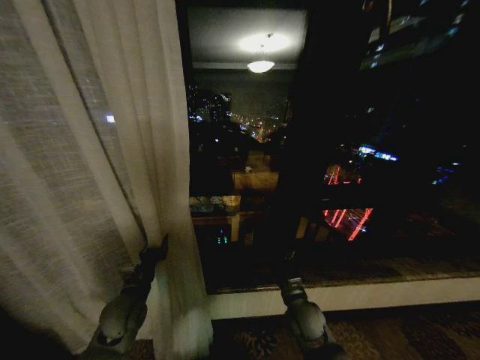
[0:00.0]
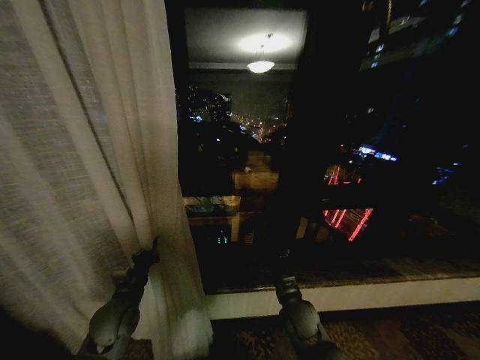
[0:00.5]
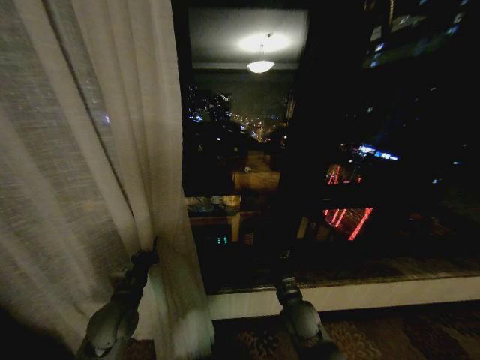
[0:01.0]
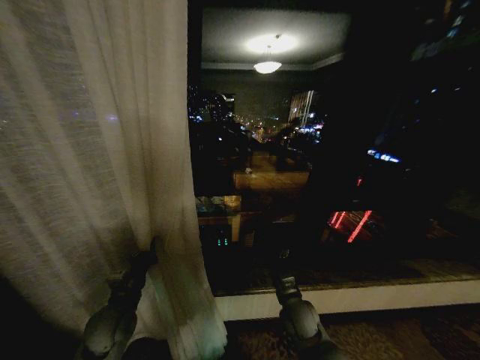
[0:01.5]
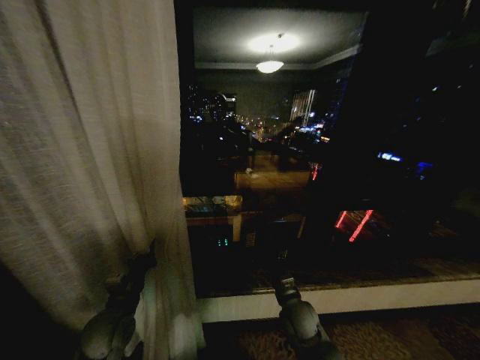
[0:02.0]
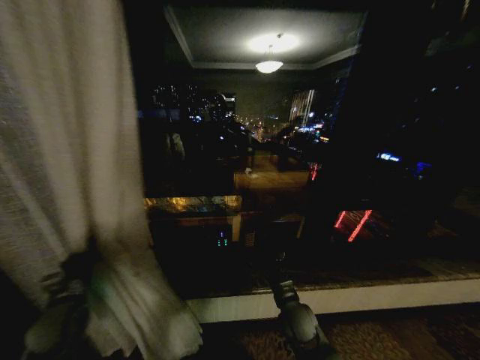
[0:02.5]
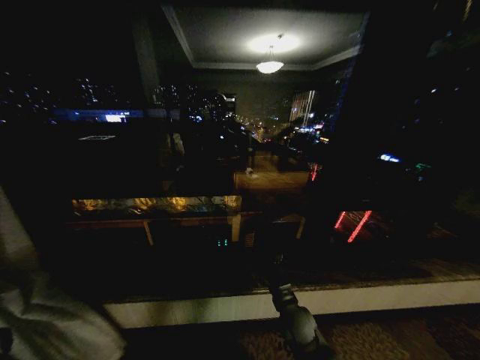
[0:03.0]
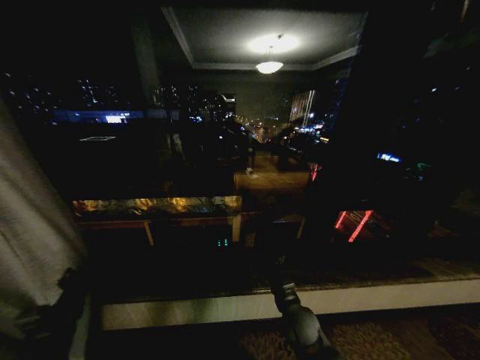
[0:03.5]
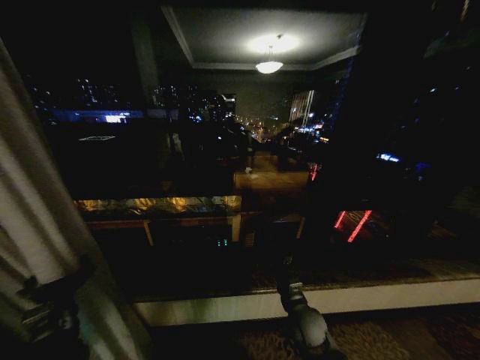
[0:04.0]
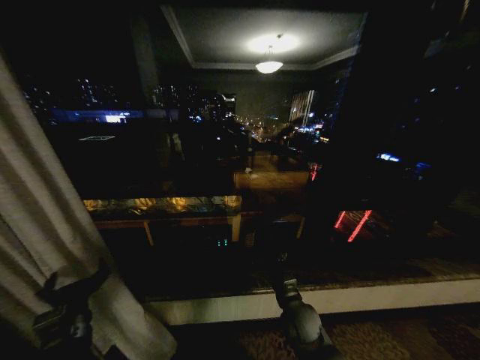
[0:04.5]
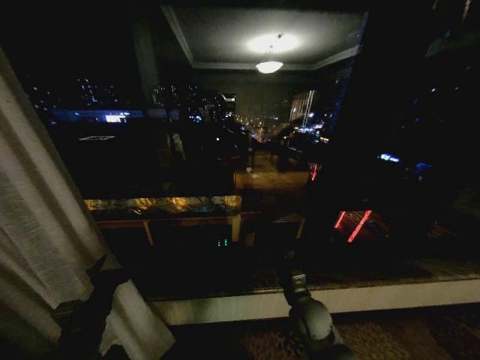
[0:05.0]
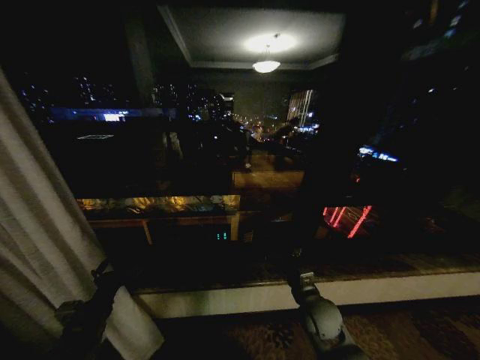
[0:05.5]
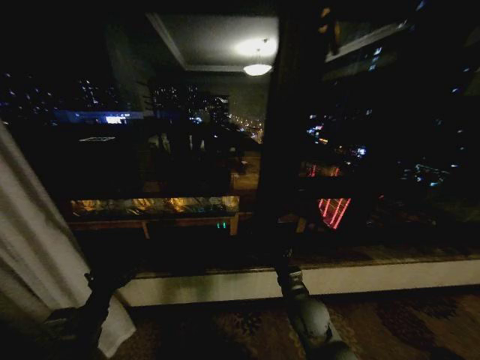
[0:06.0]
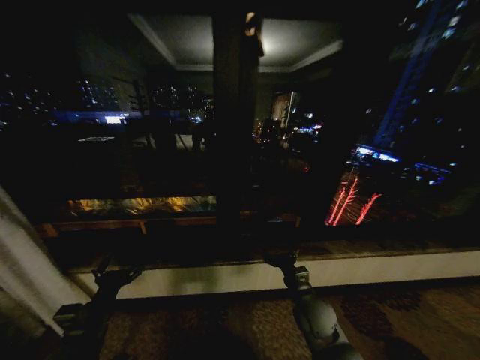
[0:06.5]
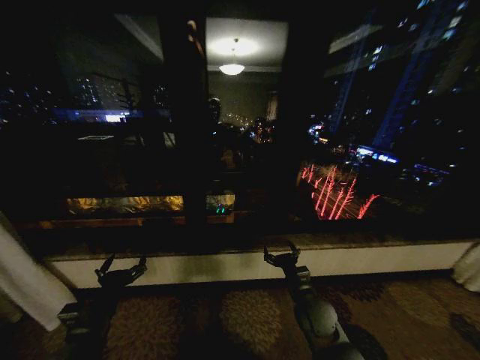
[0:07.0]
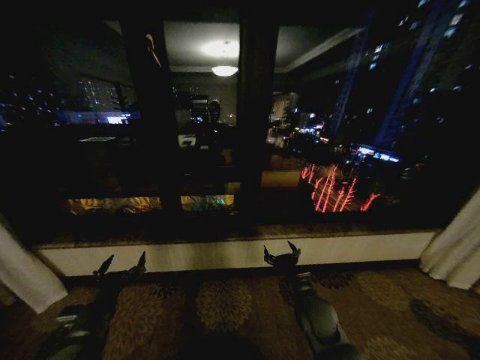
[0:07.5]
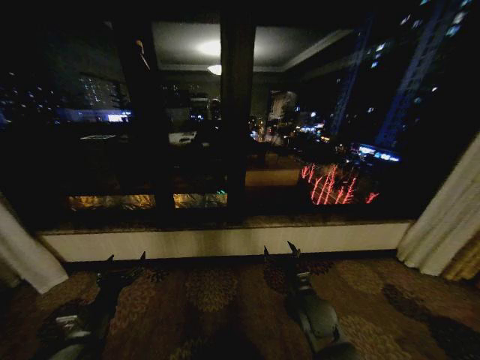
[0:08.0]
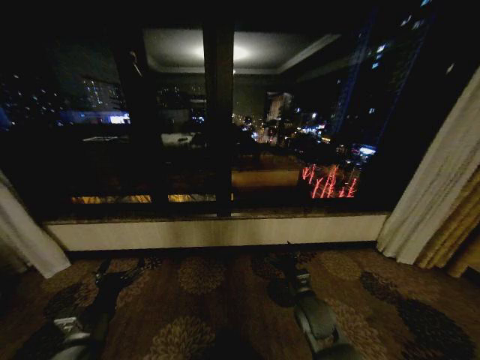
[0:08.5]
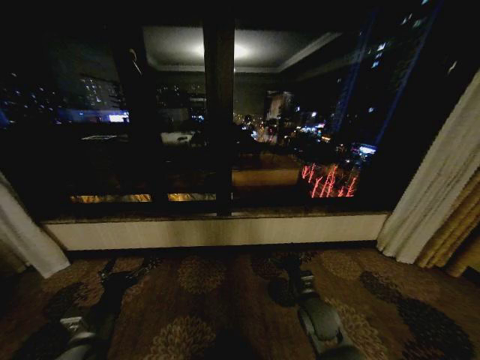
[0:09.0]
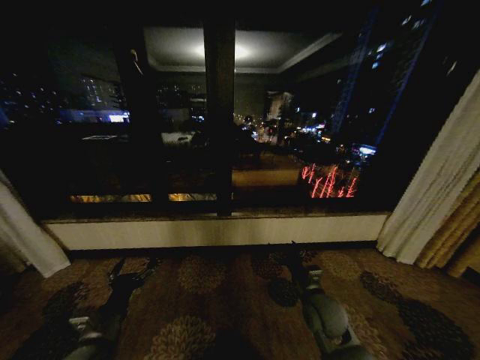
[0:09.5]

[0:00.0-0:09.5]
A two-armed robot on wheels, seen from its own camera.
Task of the whole recording: Open the curtains by pulling them apart, changing their state from closed to fully open.
0:00.0 to 0:02.0: The left gripper closes.
0:02.0 to 0:04.0: The left gripper moves backward, approximately 5 cm, travels to the left and back again, about 25 cm each way, and opens up.

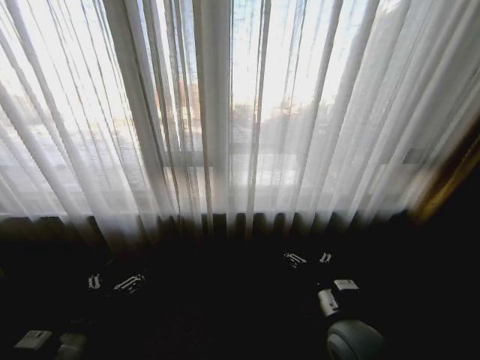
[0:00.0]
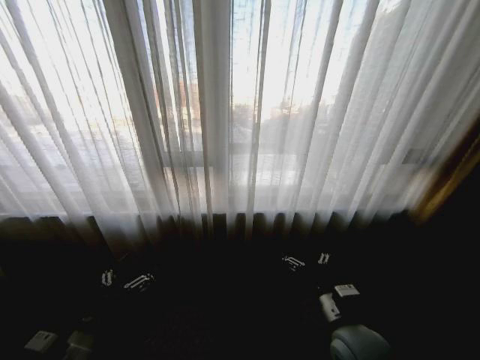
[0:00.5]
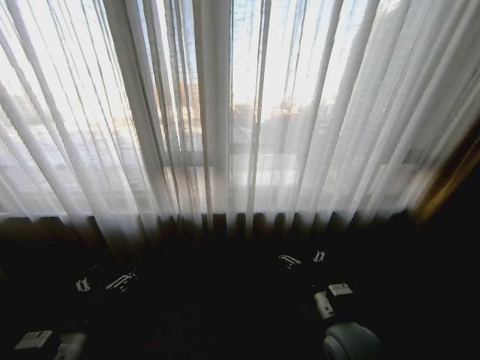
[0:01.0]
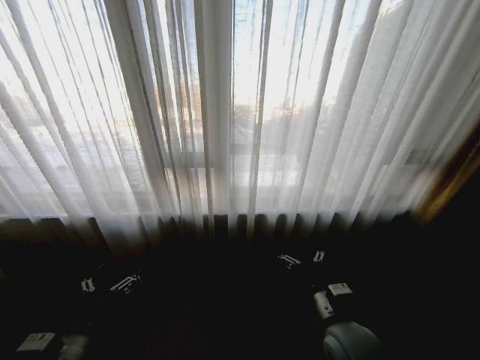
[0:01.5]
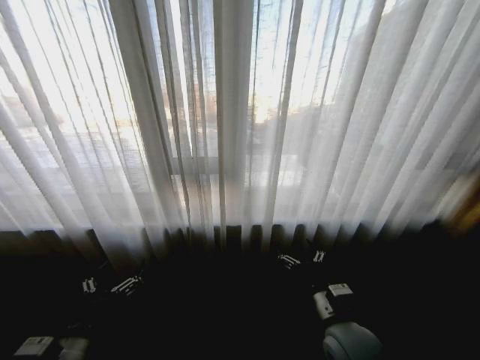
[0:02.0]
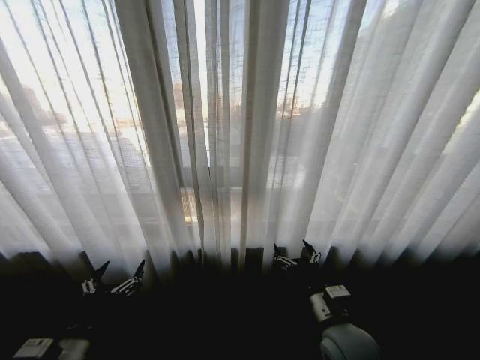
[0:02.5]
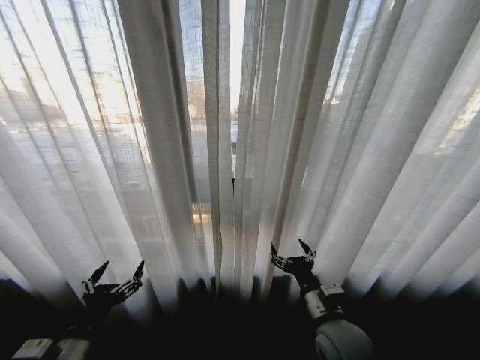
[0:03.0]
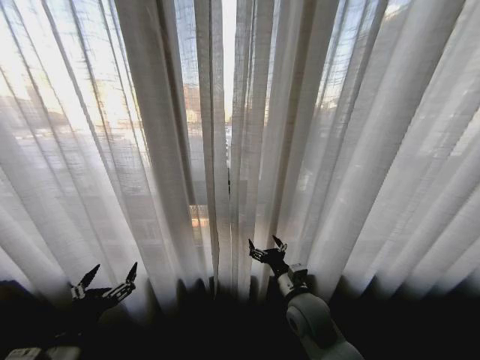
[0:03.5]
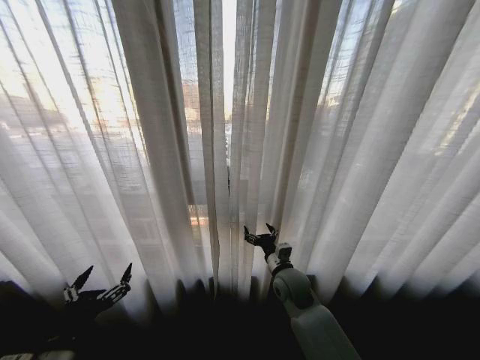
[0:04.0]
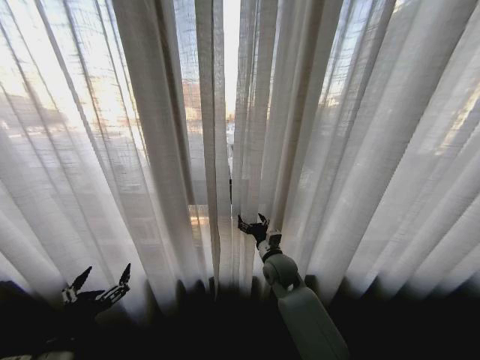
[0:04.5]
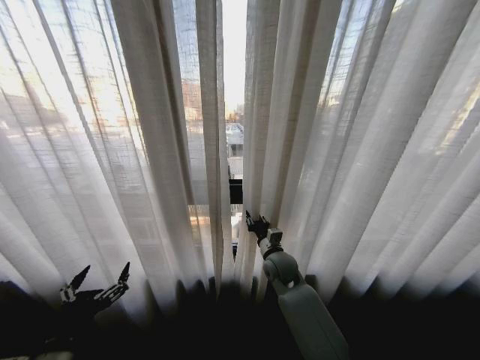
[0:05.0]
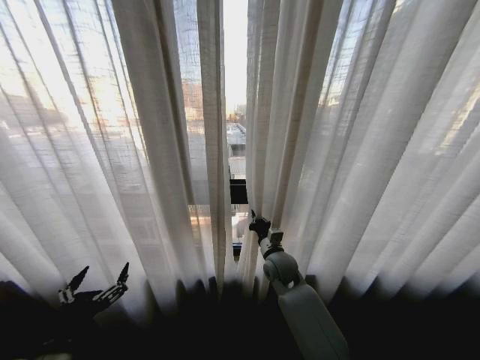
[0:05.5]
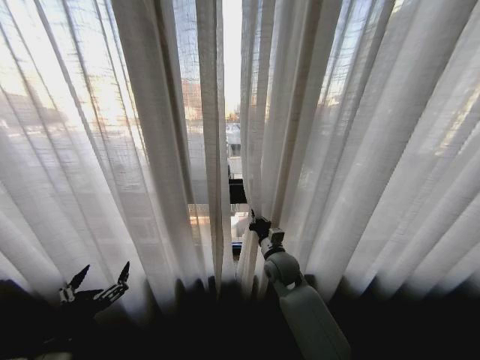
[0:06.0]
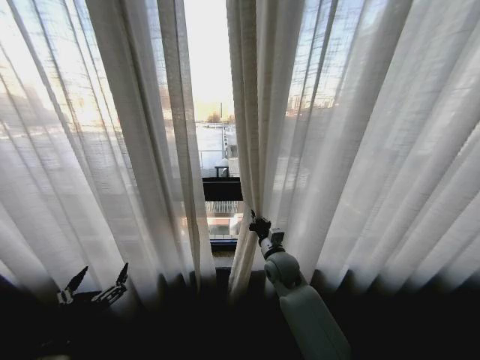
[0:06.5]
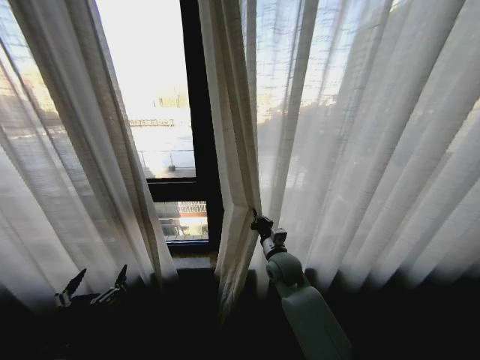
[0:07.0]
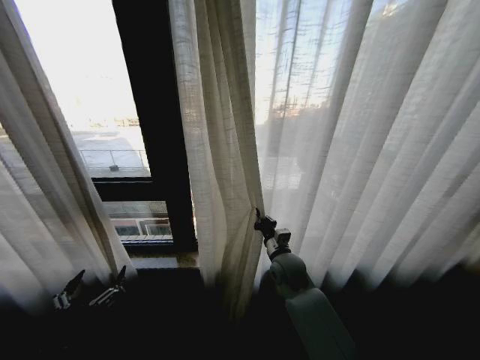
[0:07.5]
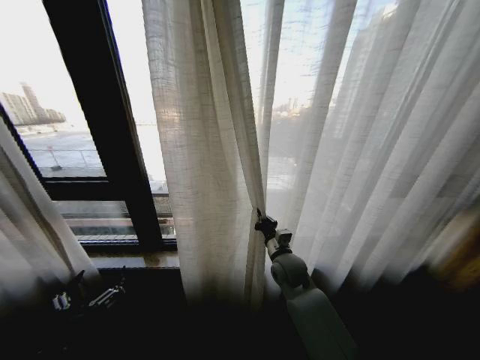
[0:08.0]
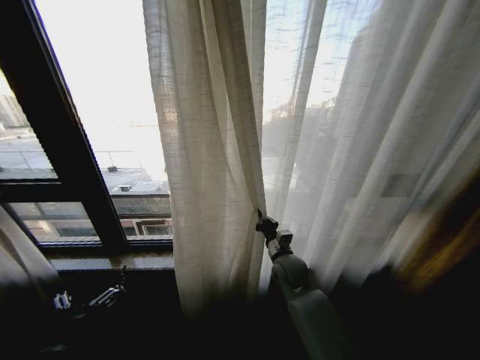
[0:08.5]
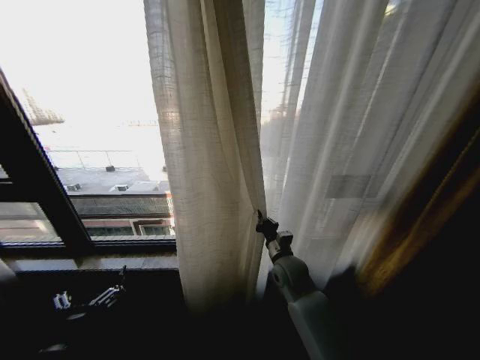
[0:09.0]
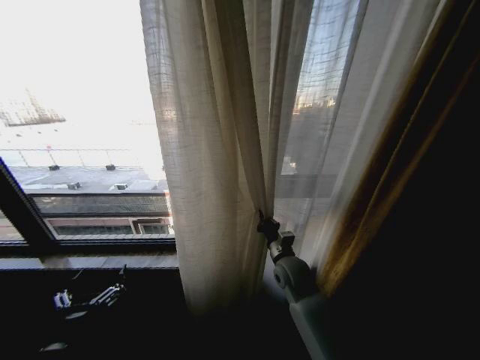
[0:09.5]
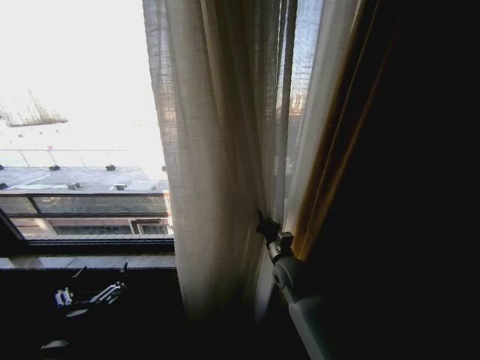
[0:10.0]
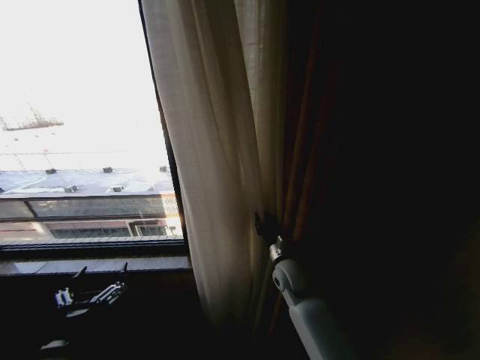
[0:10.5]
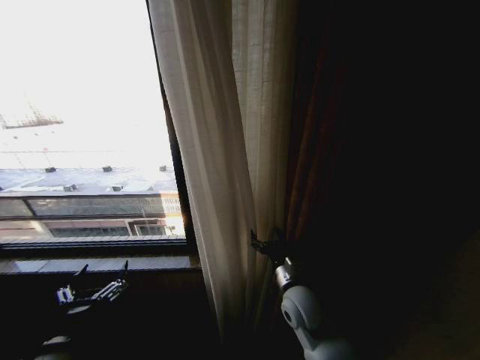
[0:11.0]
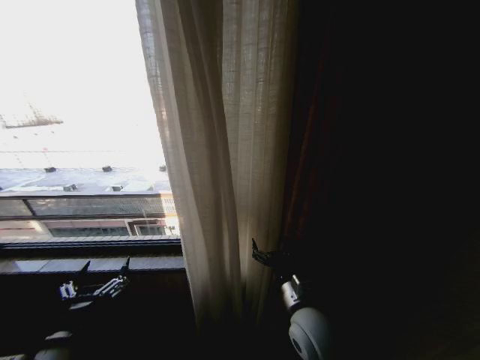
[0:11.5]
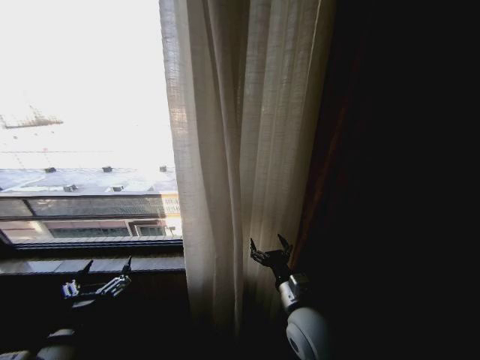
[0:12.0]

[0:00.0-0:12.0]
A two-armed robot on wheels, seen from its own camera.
Task of the whole recording: Open the curtains by pulling them apart, changing their state from closed to fully open.
0:02.0 to 0:04.0: The right gripper shifts about 15 cm forward.
0:04.0 to 0:06.0: The right gripper closes up.
0:10.0 to 0:12.0: The right gripper heads backward, covering approximately 15 cm, and opens up.

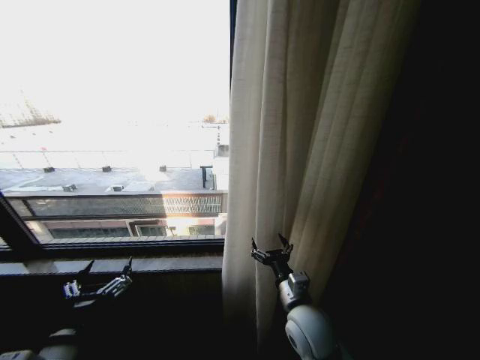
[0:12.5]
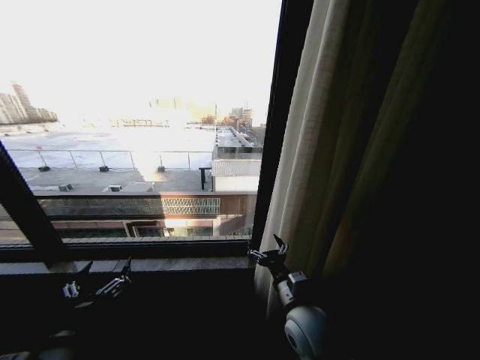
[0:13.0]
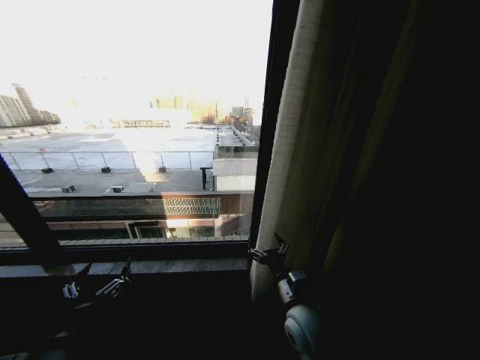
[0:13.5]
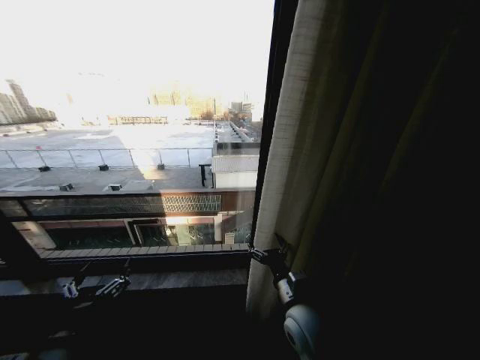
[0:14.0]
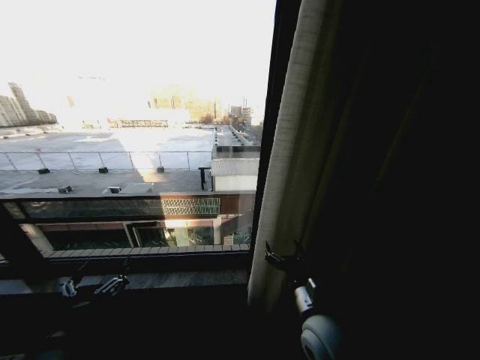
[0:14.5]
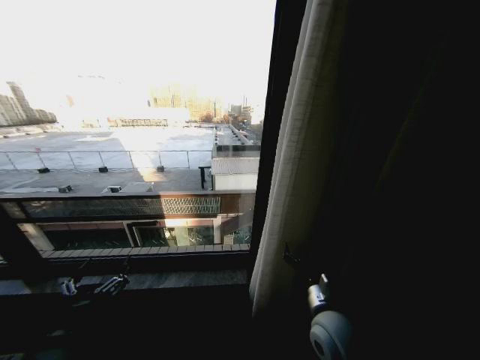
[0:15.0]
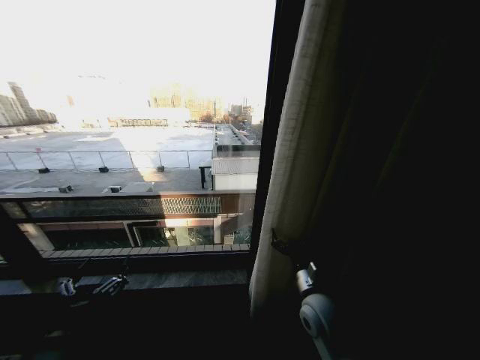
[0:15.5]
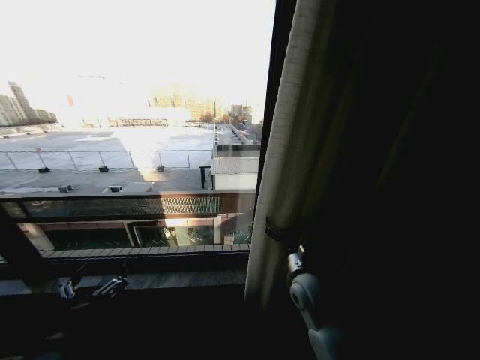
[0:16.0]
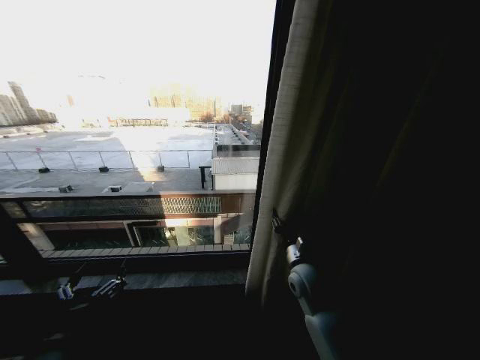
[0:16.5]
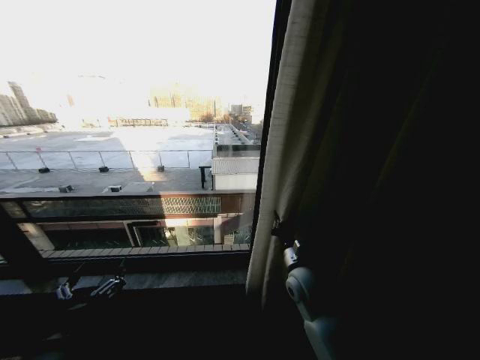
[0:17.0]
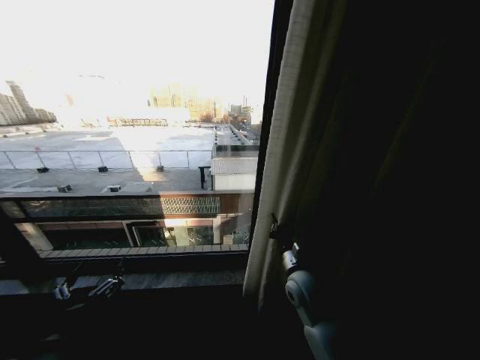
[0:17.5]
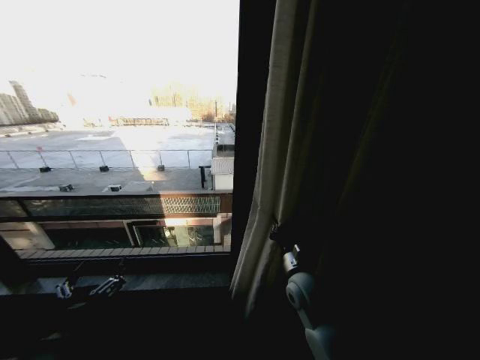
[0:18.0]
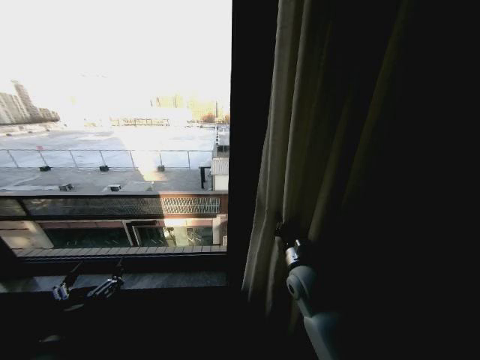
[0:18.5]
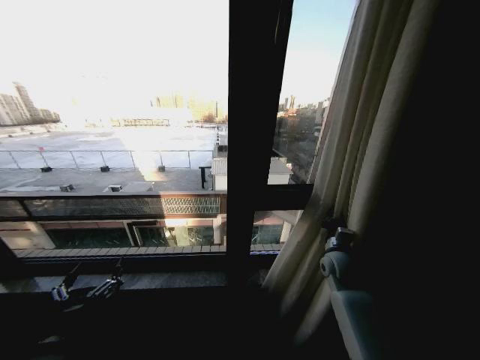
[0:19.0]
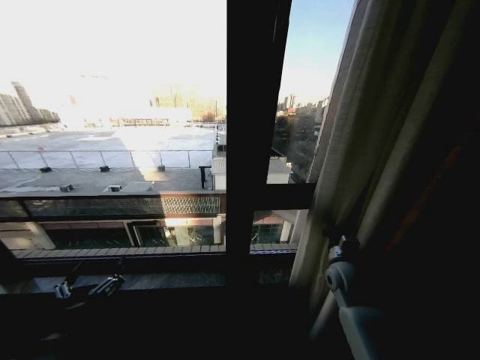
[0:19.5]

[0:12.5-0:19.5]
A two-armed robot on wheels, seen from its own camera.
Task of the whole recording: Open the curtains by pulling them apart, changing their state from closed to fully open.
0:14.5 to 0:16.0: The right gripper moves forward, roughly 10 cm.
0:16.0 to 0:17.5: The right gripper closes.
0:17.5 to 0:19.5: The right gripper moves to the right, some 15 cm.
